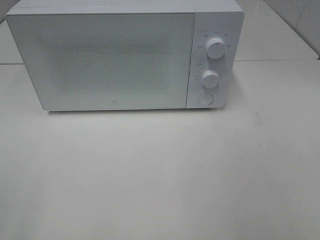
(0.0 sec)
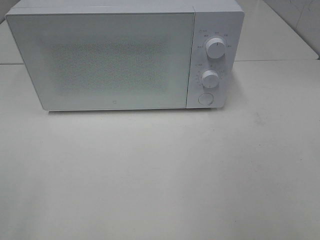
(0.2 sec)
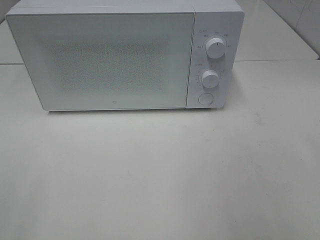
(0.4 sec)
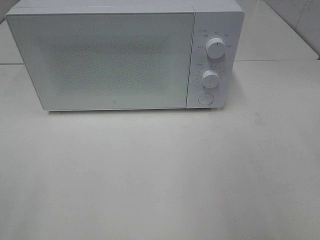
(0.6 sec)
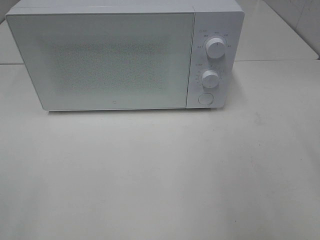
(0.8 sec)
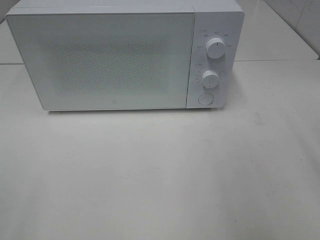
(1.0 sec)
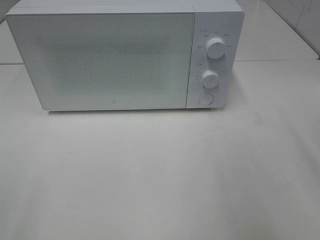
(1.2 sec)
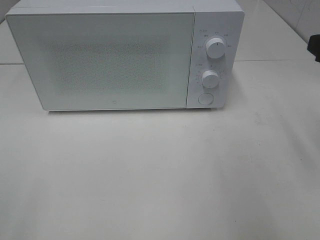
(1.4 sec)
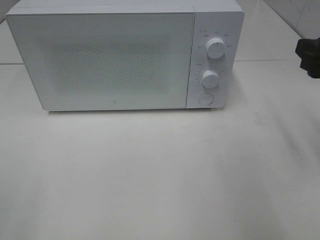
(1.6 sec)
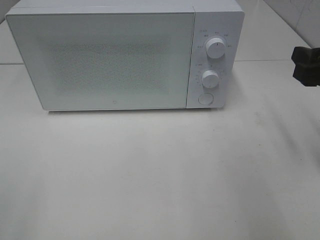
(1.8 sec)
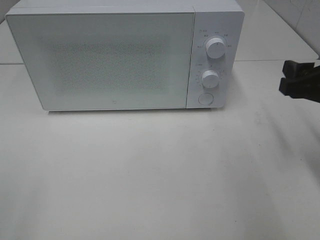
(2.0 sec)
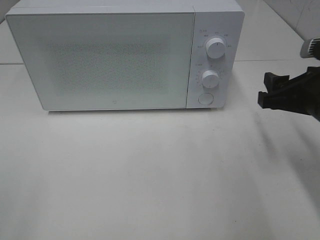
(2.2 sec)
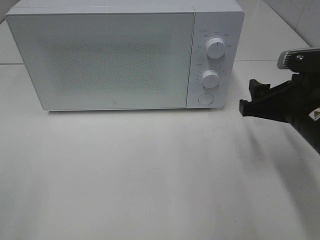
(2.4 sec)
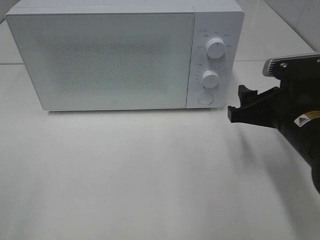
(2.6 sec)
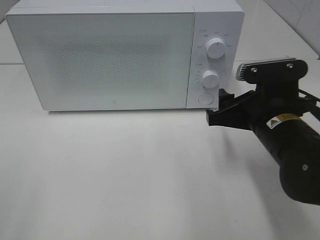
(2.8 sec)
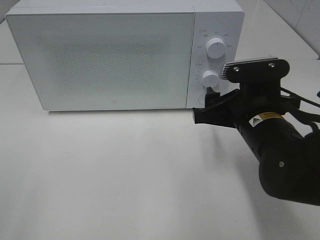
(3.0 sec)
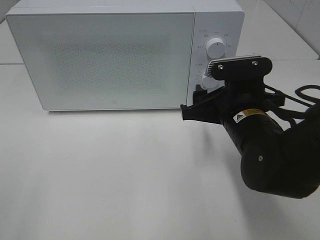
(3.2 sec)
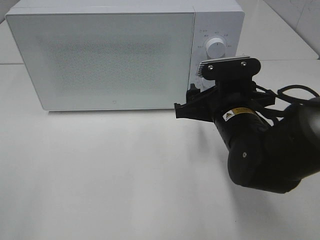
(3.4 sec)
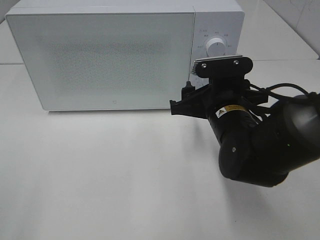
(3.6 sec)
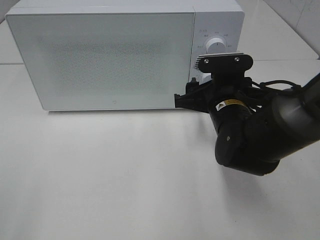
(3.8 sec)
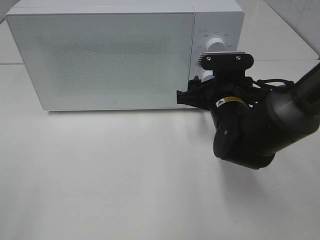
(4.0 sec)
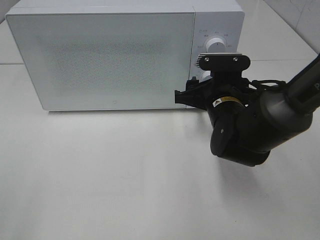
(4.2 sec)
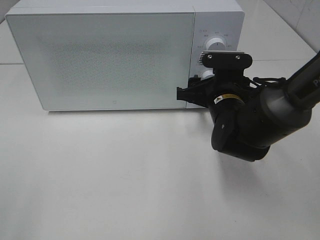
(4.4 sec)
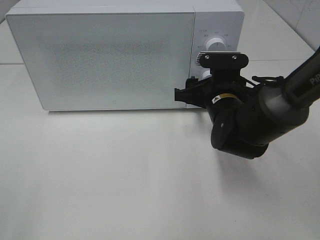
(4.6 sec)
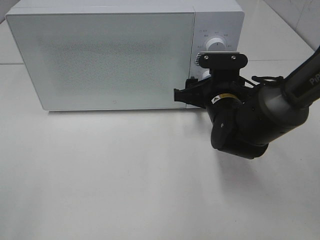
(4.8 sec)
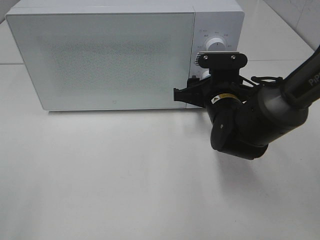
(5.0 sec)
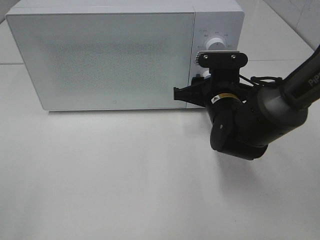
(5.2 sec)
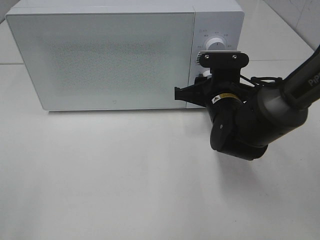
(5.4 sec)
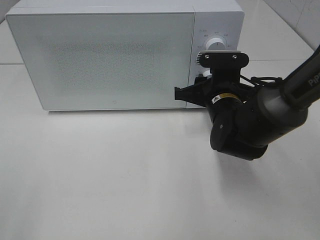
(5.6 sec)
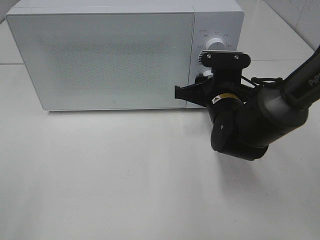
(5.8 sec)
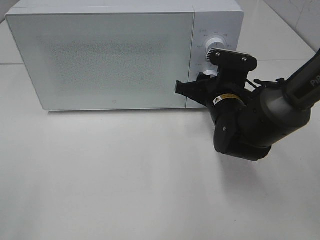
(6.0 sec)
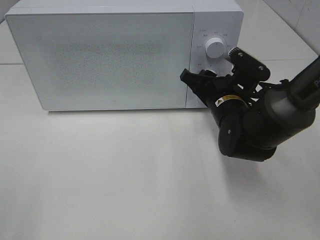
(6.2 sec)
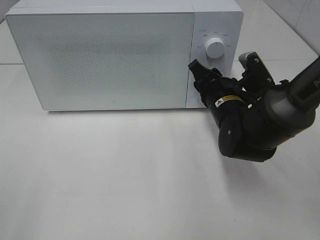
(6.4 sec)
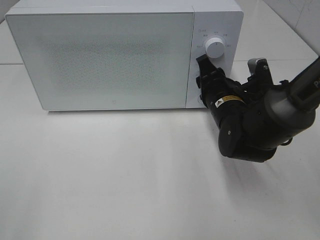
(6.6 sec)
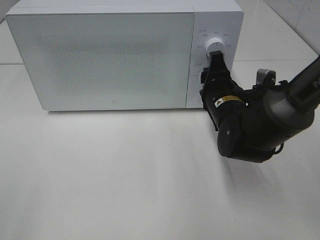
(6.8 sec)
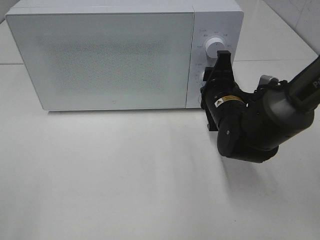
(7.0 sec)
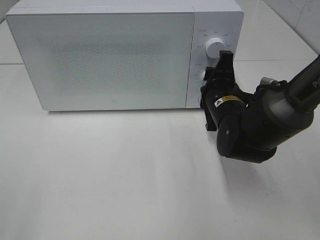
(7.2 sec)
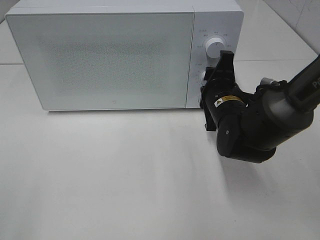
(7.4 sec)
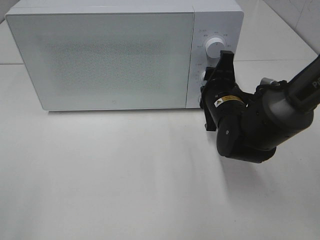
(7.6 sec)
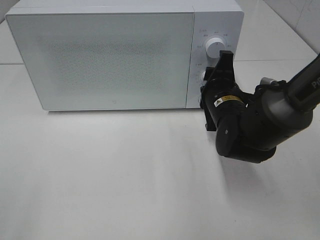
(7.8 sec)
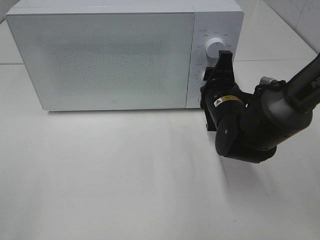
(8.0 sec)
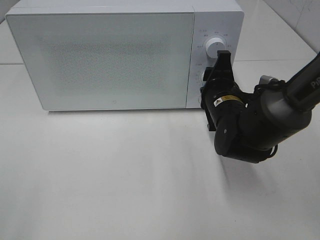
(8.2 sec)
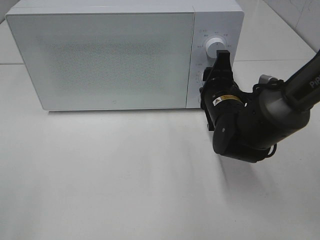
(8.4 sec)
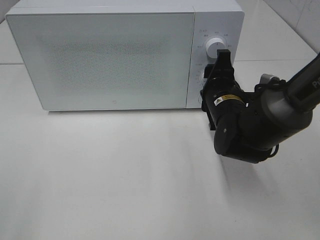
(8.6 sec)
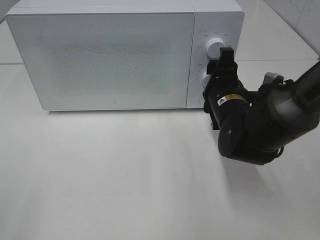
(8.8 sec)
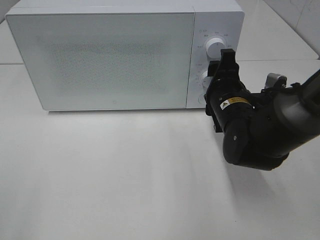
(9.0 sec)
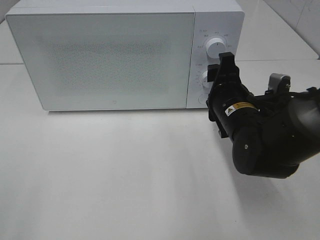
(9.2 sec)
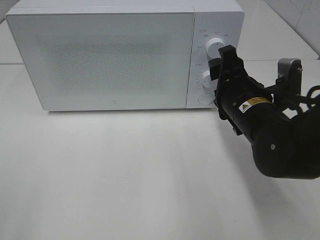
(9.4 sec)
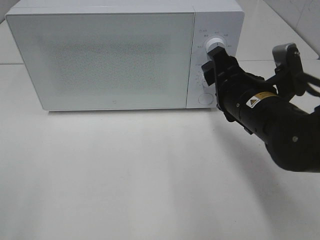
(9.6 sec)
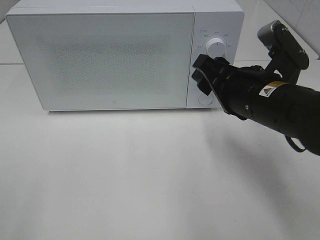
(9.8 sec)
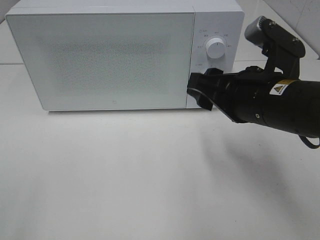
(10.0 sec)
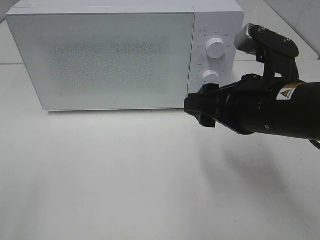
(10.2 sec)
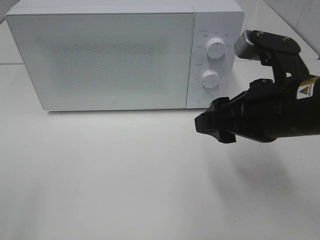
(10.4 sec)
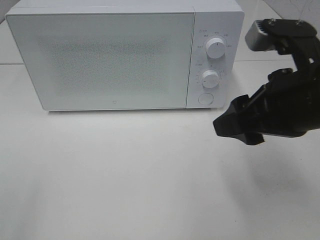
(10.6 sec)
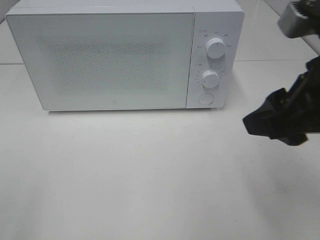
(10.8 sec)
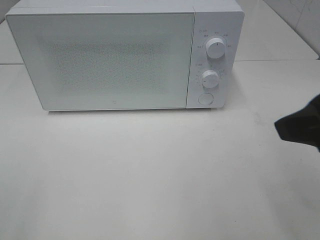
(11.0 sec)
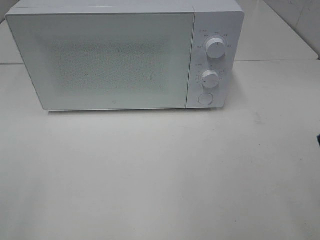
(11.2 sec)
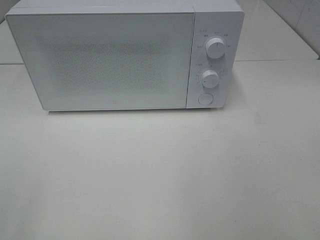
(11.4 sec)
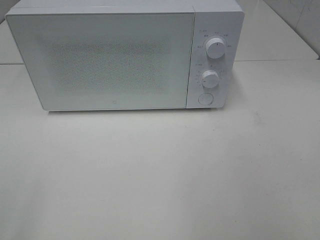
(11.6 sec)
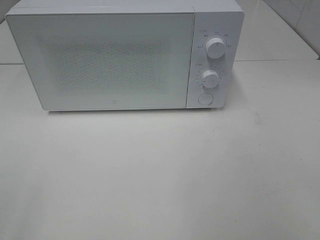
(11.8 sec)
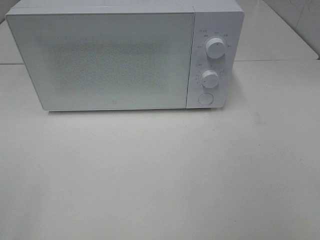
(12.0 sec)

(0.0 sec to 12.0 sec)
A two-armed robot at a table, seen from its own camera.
Task of the whole recording: Heat the burger.
Step, 0.0 sec - 8.8 sec: Right hand: twist timer button.
0.0 sec - 1.6 sec: The right gripper heads forward, covering approximately 20 cm.
1.6 sec - 3.0 sec: The right gripper shifts approximately 15 cm to the left and downward.
3.0 sec - 4.4 sec: The right gripper heads forward, covering approximately 10 cm.
4.4 sec - 6.0 sec: The grippers move only a little.
7.6 sec - 9.0 sec: The grippers make only small movements.
9.0 sec - 10.4 sec: The right gripper travels backward and upward by about 15 cm.
10.4 sec - 12.0 sec: The right gripper is displaced backward, to the right and upward by roughly 25 cm.

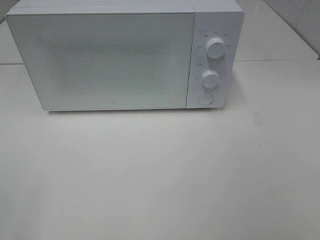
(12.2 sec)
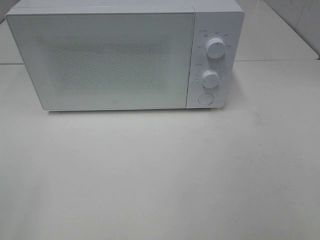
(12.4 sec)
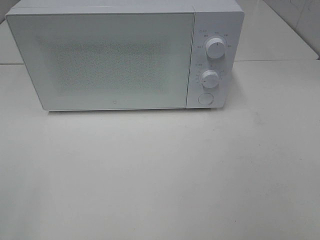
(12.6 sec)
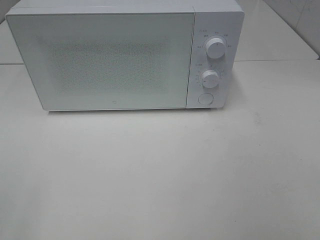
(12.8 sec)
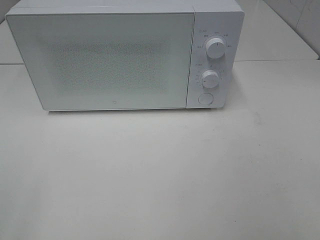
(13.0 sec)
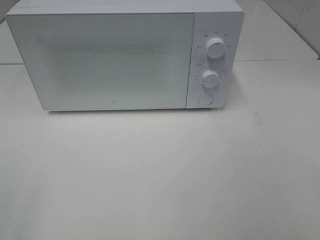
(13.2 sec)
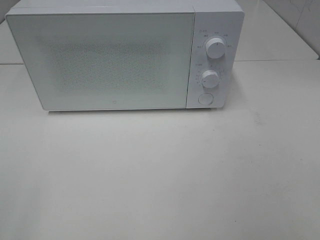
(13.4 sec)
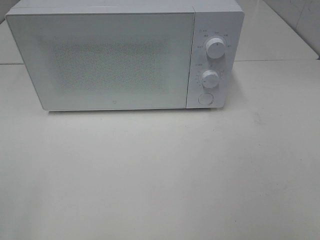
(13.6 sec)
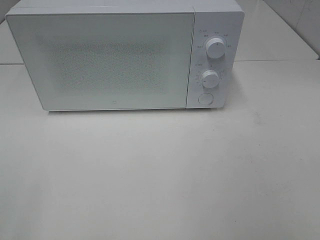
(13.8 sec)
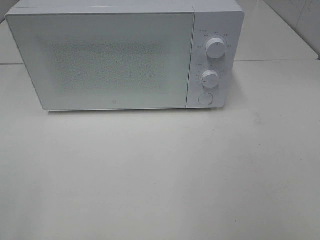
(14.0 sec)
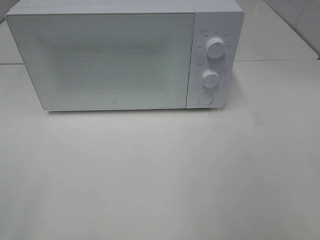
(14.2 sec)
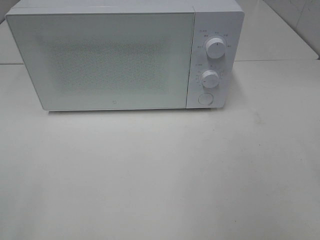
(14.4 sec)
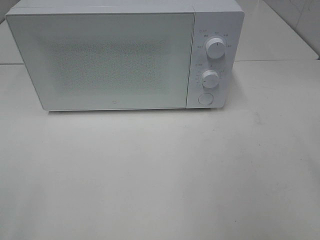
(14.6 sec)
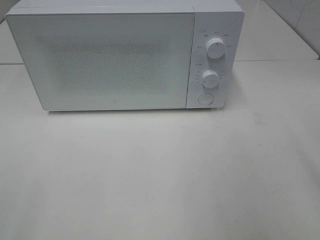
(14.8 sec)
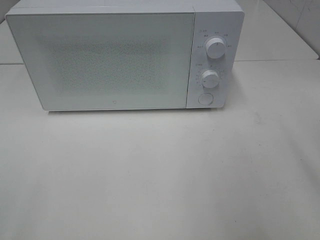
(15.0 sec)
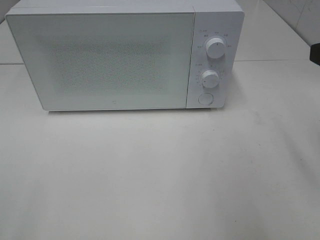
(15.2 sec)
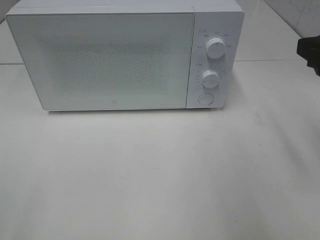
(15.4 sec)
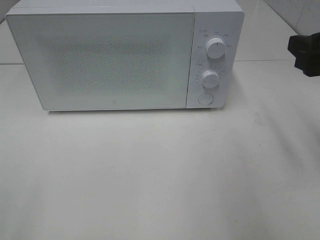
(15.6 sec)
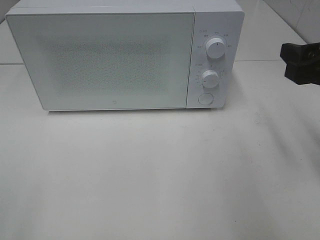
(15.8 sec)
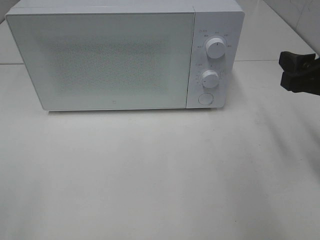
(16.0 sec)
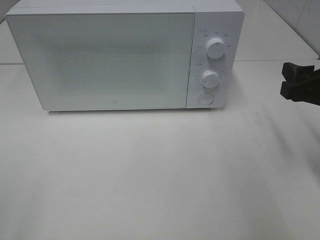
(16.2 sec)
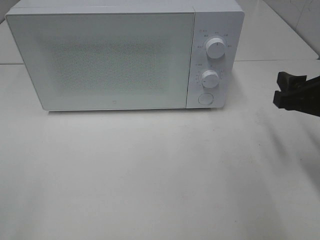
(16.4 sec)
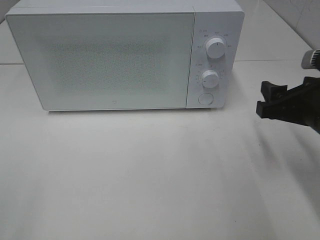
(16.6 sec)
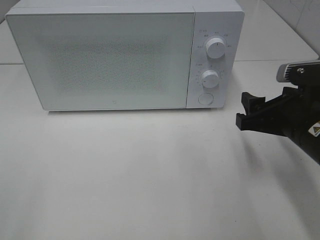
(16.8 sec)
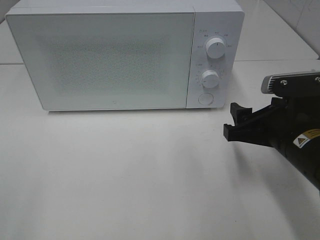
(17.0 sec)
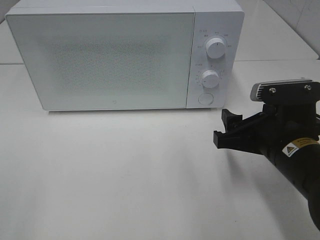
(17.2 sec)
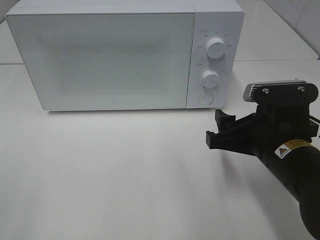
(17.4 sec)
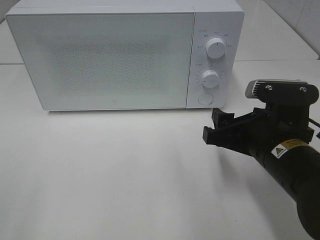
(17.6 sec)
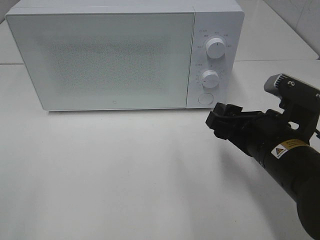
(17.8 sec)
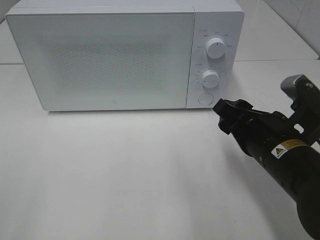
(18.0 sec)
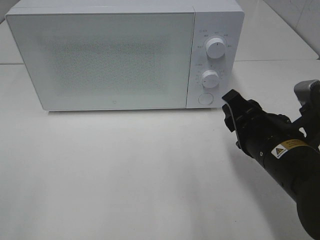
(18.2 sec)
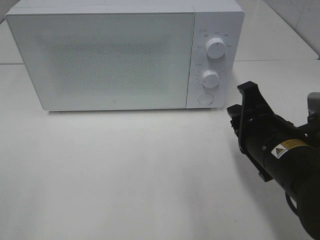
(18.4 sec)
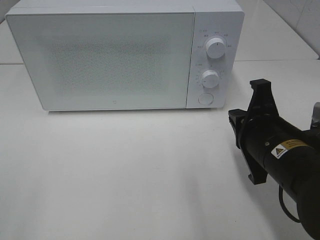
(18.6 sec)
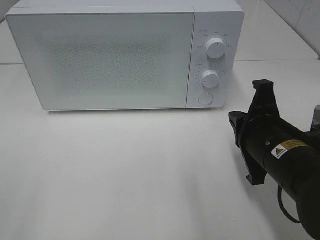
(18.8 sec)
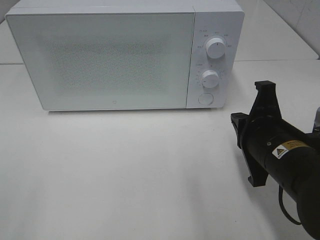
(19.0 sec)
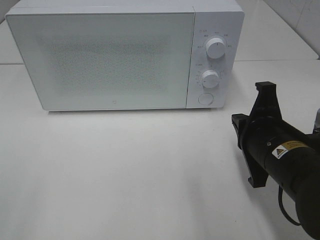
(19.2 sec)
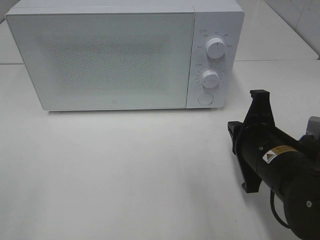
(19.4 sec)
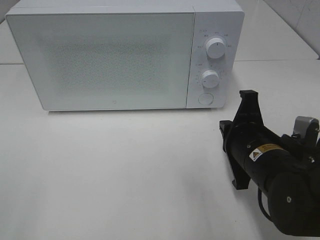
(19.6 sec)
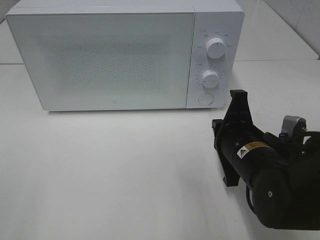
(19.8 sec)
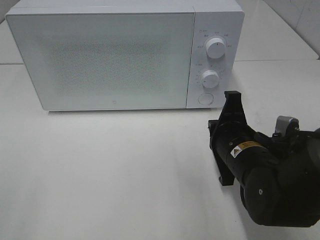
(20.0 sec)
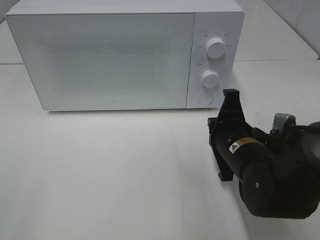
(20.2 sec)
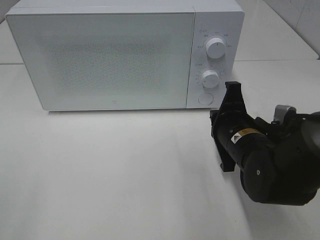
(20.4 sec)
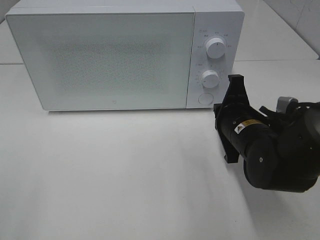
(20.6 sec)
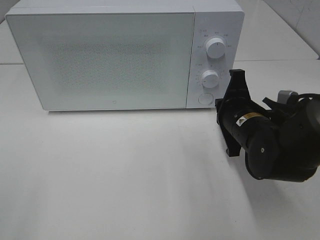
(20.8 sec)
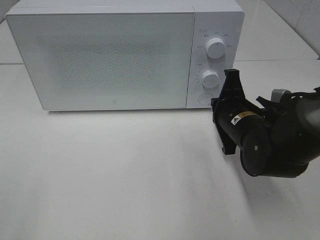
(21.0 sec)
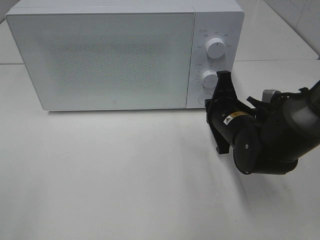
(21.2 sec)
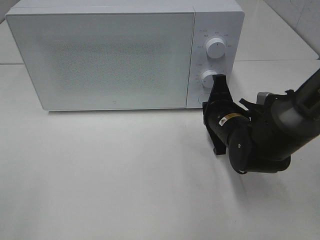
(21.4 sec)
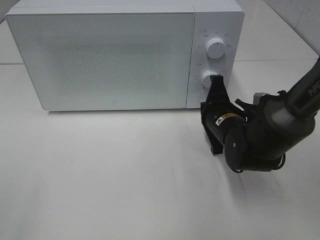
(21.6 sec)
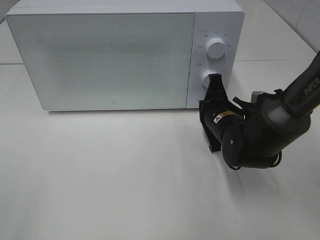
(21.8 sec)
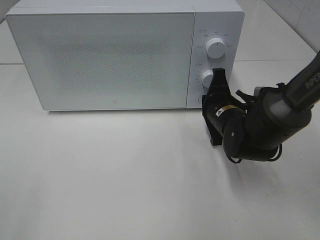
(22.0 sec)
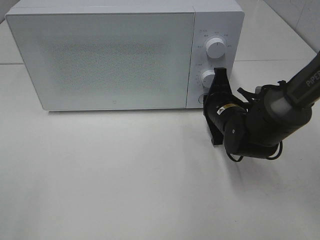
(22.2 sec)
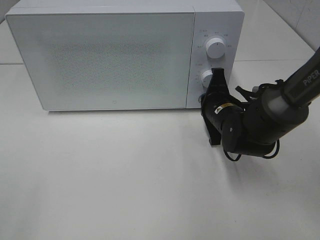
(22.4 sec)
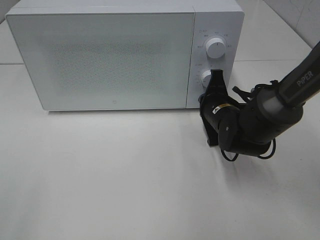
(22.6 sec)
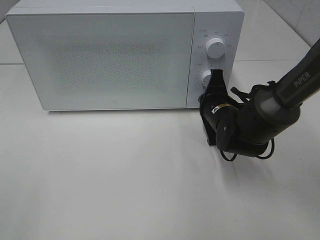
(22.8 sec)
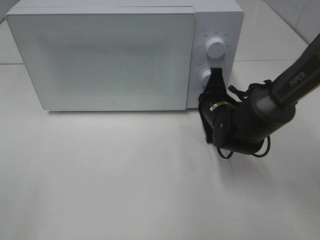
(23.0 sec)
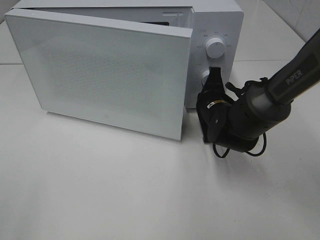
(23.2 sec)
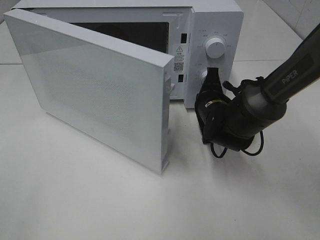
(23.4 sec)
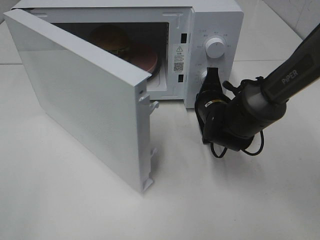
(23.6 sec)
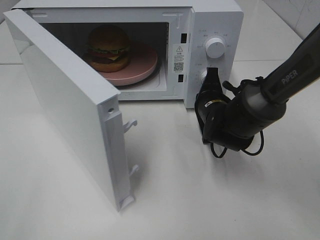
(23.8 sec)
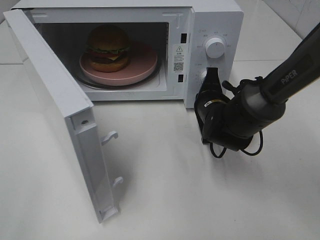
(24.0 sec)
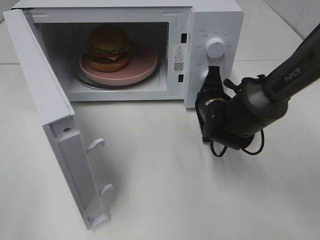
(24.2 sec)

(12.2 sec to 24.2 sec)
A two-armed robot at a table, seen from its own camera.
Task of the whole recording: Heat the burger.
15.2 sec - 16.6 sec: The right gripper goes roughly 10 cm downward.
16.6 sec - 18.2 sec: The right gripper is displaced to the left by some 10 cm.
18.2 sec - 19.8 sec: The right gripper changes place by some 5 cm, and closes its fingers.
19.8 sec - 21.2 sec: The right gripper is displaced forward by roughly 10 cm.
21.2 sec - 22.6 sec: There are only small adjustments of the grippers.
